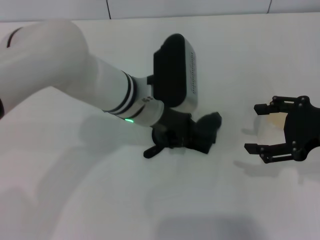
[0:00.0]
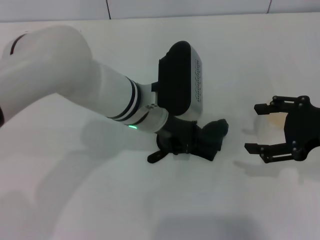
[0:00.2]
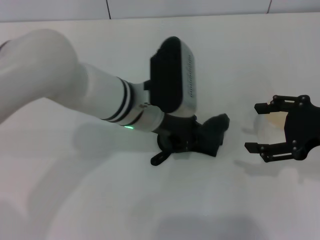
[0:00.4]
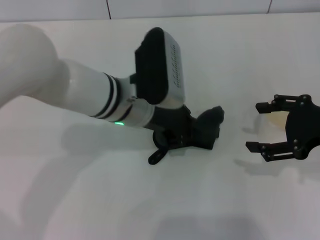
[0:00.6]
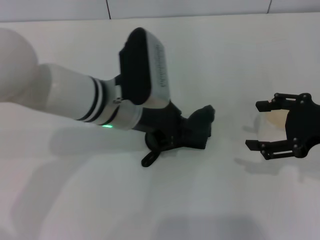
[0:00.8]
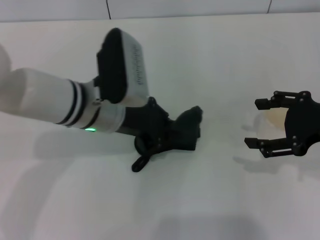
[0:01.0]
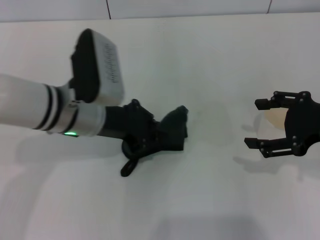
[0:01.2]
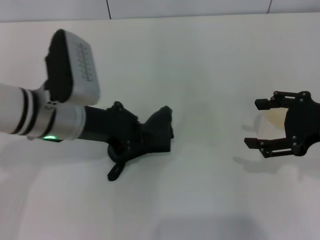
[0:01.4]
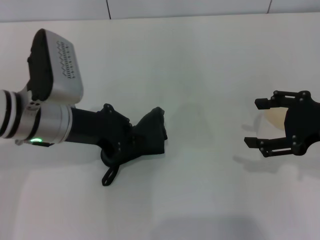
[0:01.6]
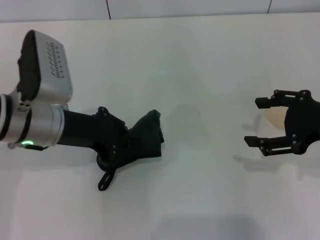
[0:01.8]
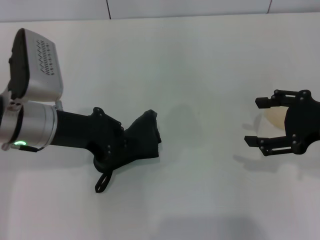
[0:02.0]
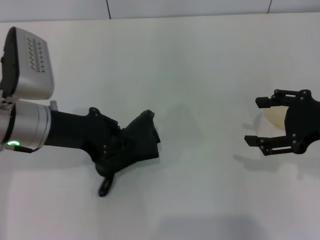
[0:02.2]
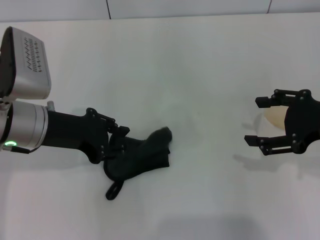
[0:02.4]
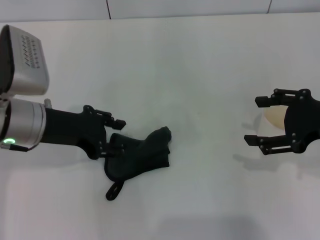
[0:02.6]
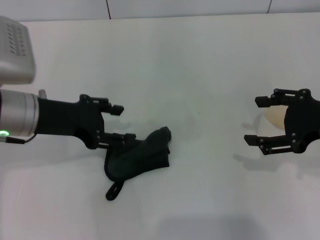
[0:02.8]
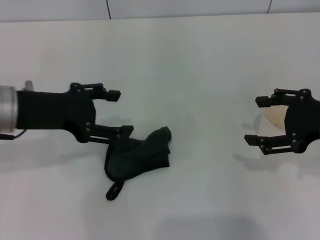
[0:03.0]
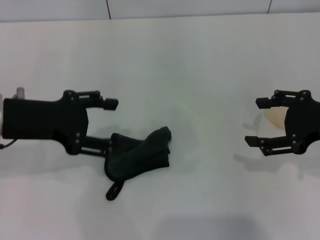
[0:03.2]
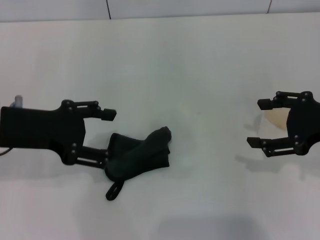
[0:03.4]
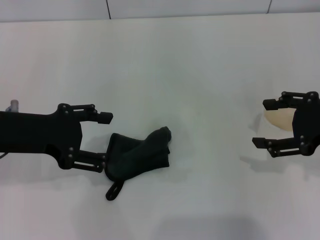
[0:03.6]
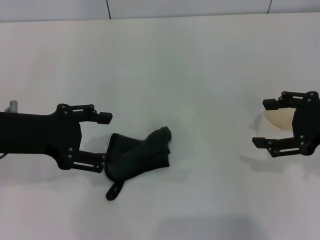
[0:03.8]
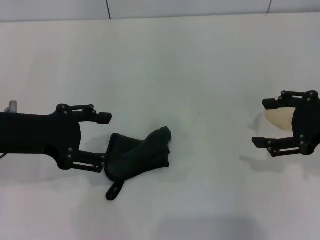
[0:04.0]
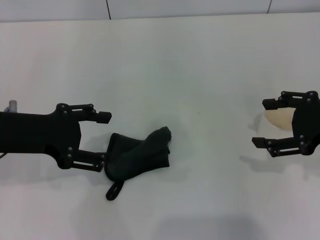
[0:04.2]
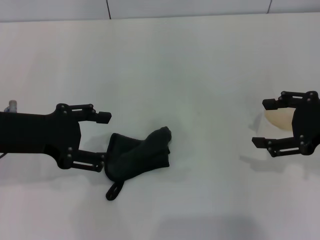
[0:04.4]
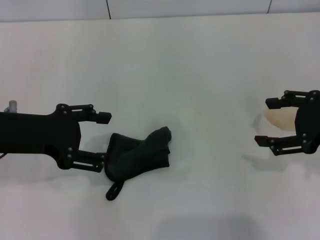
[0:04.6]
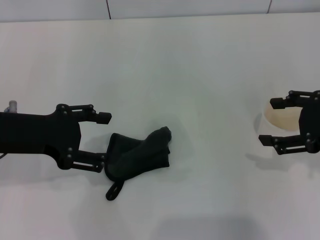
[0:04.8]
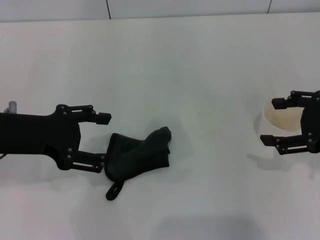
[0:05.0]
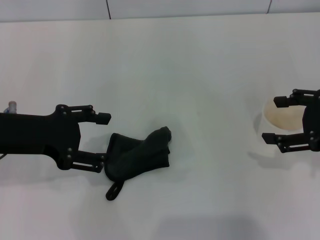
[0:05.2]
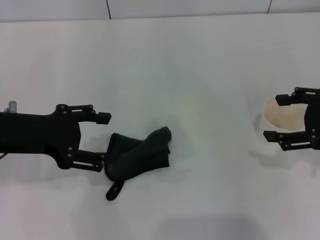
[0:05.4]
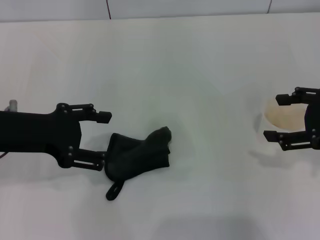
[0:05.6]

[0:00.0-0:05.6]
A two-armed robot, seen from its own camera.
Step, 0:00.8 to 0:02.6: Place the rag on the table with the left gripper.
0:00.0 to 0:01.4: The left gripper travels to the left by roughly 10 cm.
0:01.4 to 0:02.8: The left gripper heads to the left, covering roughly 5 cm, and opens its fingers.
0:02.8 to 0:04.2: The left gripper shifts by about 5 cm, and opens up.
0:04.2 to 0:05.6: The grippers move only a little.
